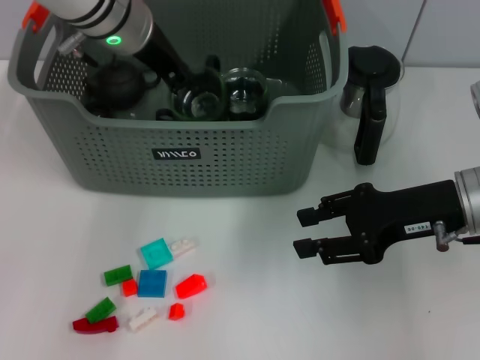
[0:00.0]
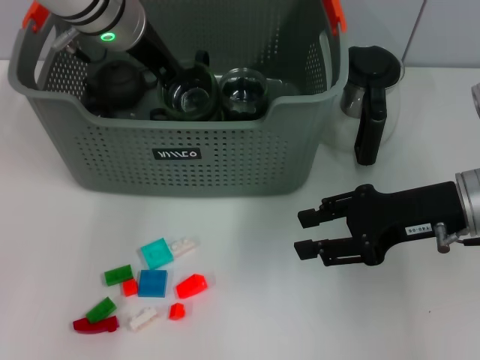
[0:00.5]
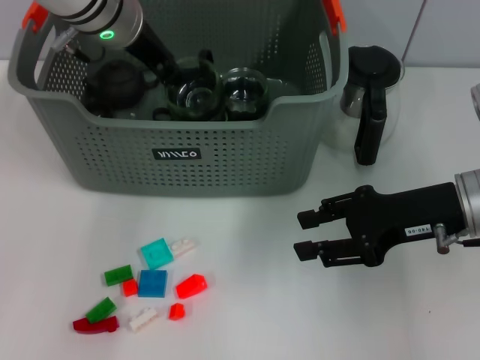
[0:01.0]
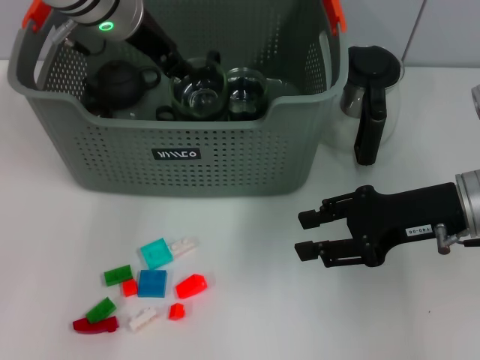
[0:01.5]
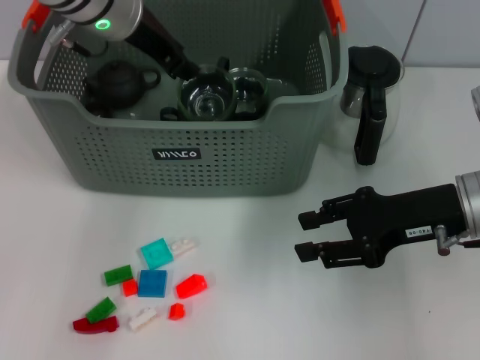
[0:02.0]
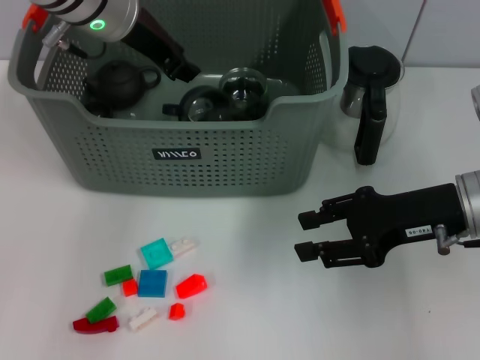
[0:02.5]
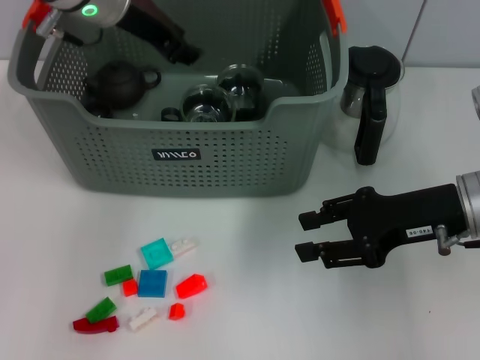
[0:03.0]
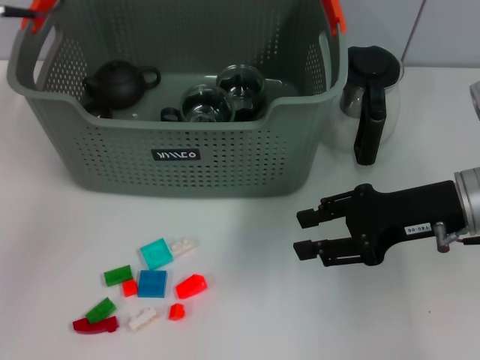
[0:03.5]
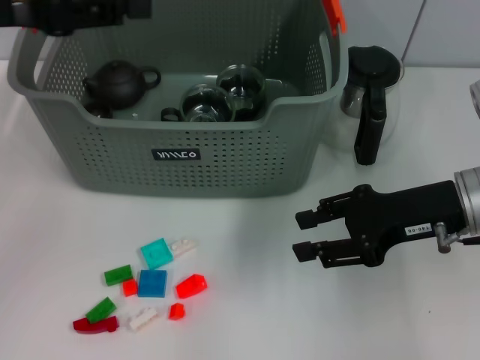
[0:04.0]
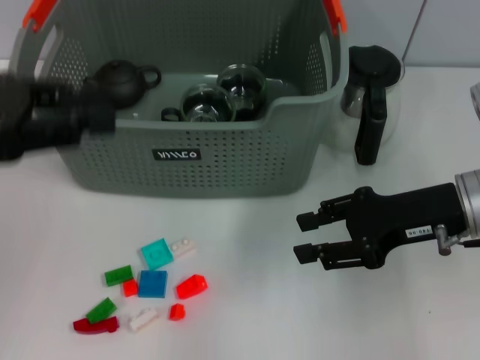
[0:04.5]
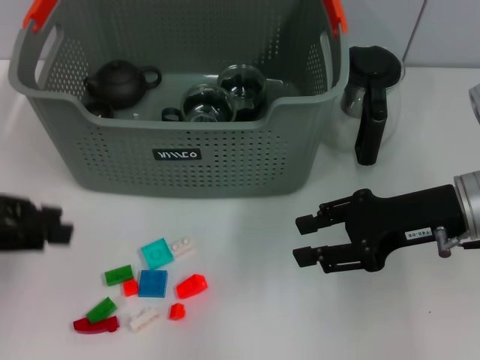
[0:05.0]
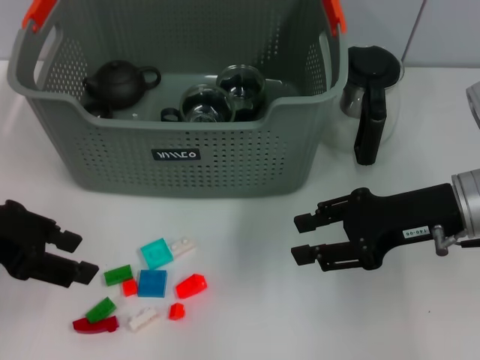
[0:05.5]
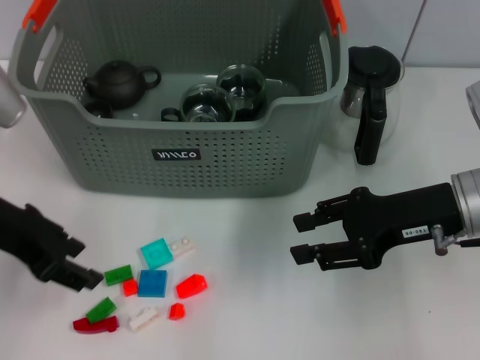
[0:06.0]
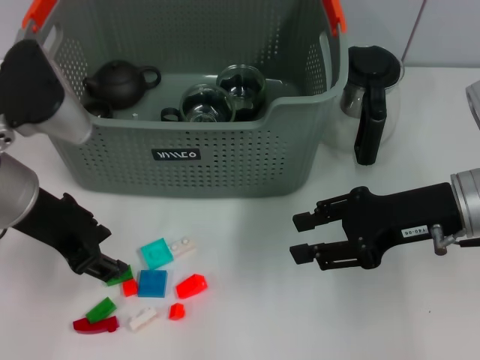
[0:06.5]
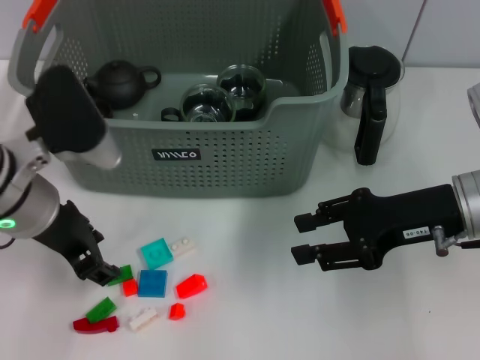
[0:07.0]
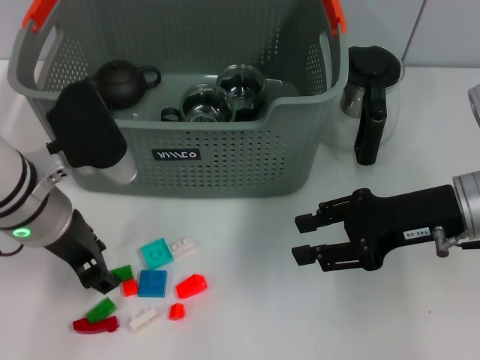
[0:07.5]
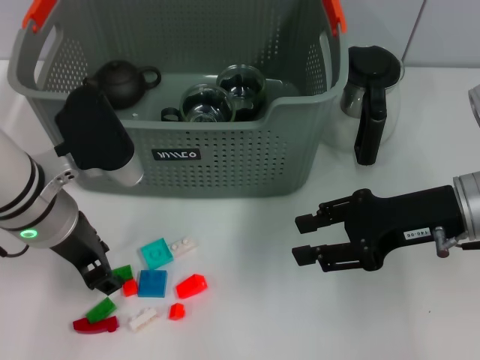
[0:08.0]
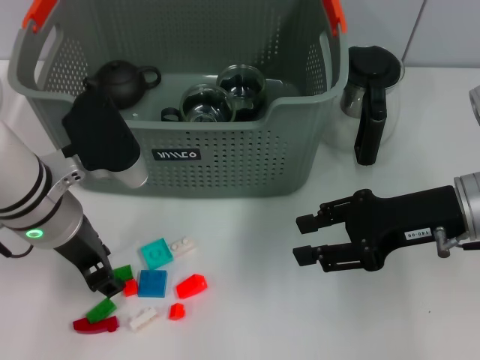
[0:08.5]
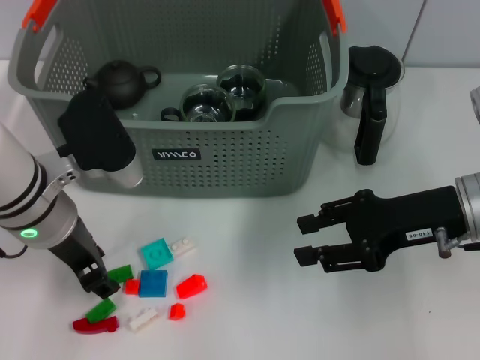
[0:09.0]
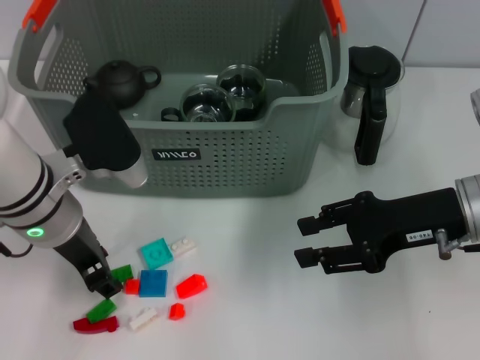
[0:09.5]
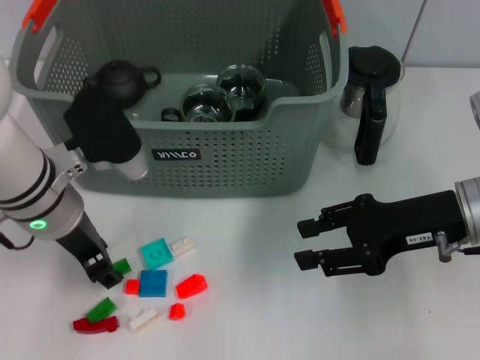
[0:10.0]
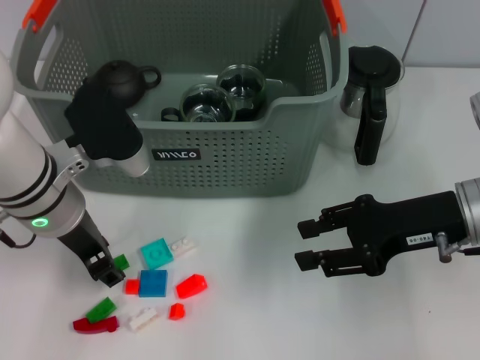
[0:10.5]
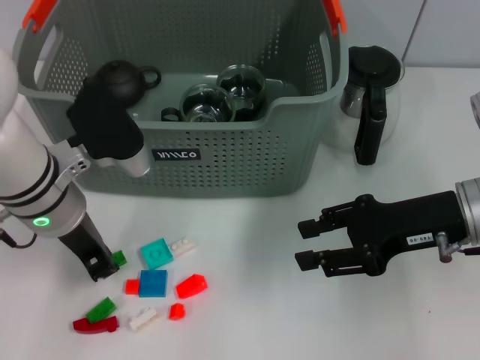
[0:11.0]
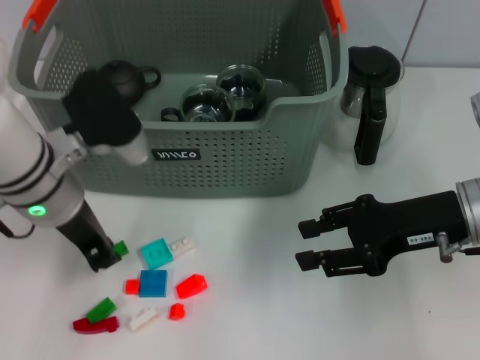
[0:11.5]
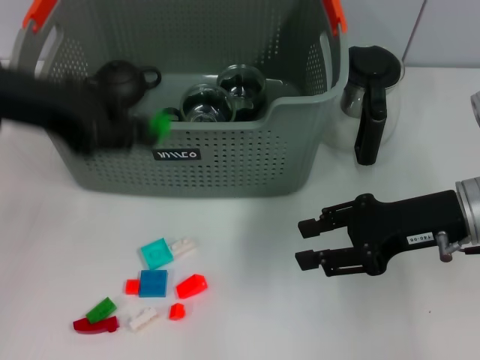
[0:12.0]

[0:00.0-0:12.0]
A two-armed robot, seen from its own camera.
Task of the whole recording: pick up the teacup on the table and place it into the storage bin, pick up the block on the table and place it into the storage bin.
Step, 0:00.0 to 0:03.0: Place the cup in the storage box with left gripper.
Step, 0:03.5 to 0:11.5: Grasp the green block with left gripper.
0:00.0 to 0:02.0: The grippers move only a little.
0:02.0 to 0:04.0: The left gripper is displaced to the left, backward and upward by about 20 cm.
0:04.0 to 0:06.0: The left gripper moves downward, roughly 10 cm.
0:06.0 to 0:08.0: The left gripper shifts approximately 10 cm to the right and downward.
0:08.0 to 0:10.0: The grippers stay close to where they were, moving slightly.
0:10.0 to 0:12.0: The left gripper travels upward and to the left by roughly 15 cm, and closes up.

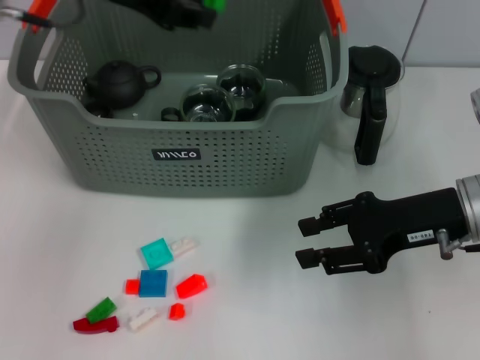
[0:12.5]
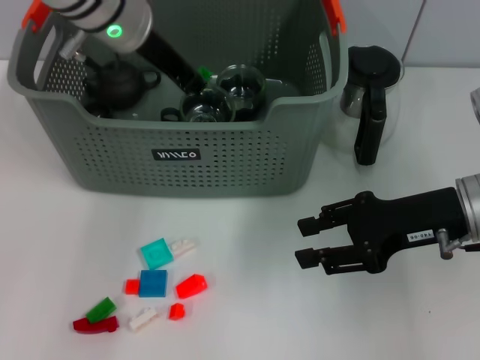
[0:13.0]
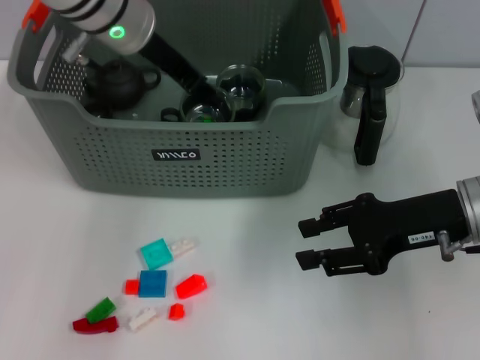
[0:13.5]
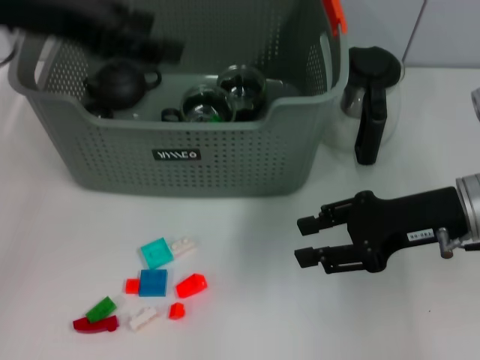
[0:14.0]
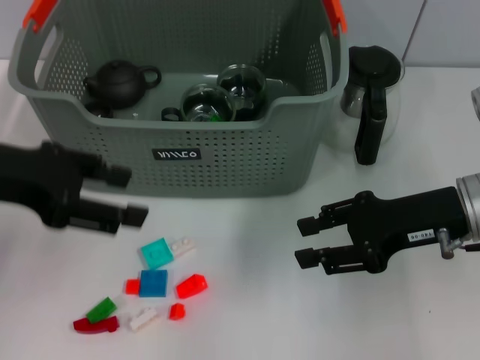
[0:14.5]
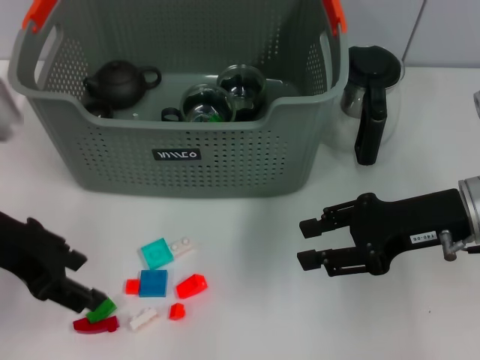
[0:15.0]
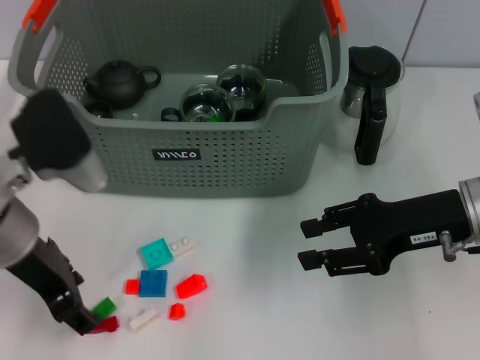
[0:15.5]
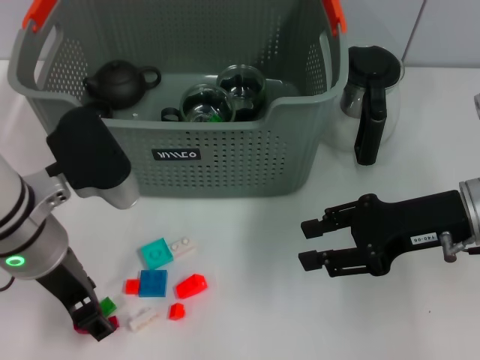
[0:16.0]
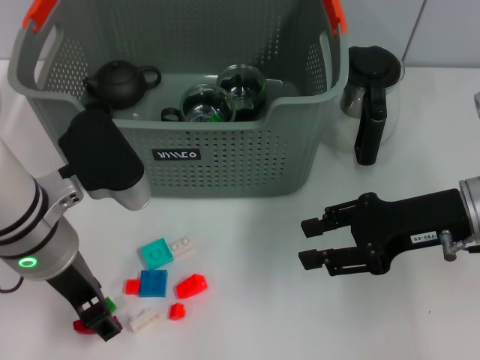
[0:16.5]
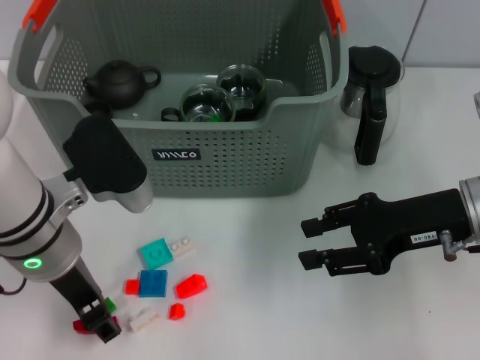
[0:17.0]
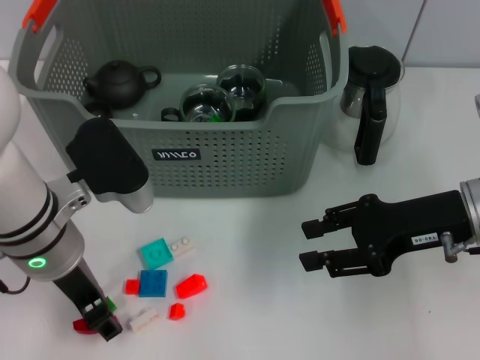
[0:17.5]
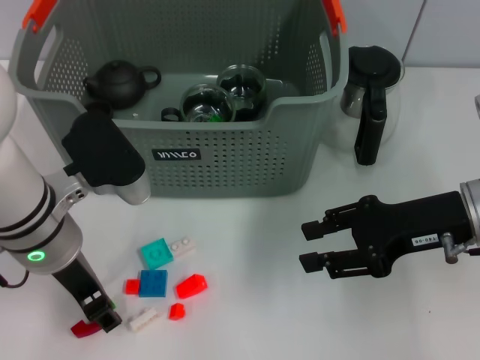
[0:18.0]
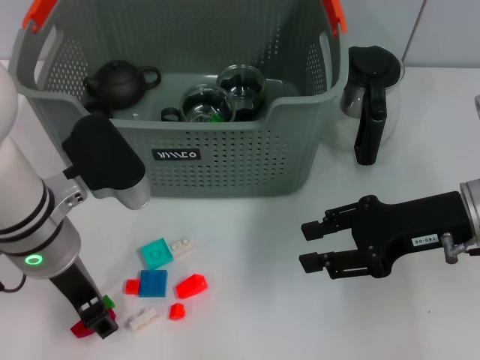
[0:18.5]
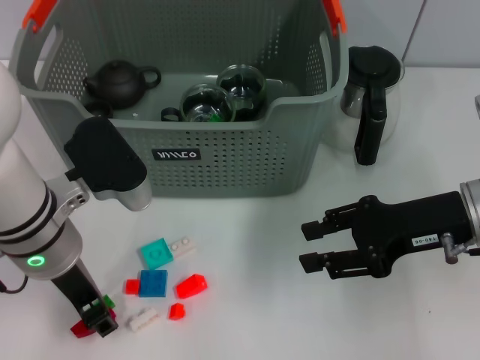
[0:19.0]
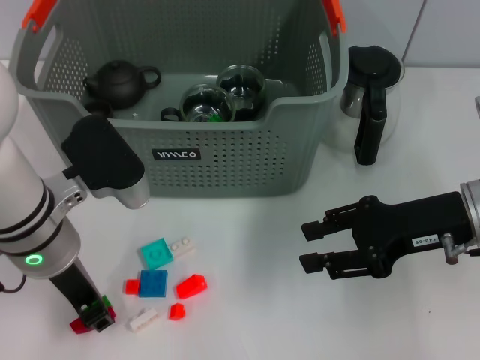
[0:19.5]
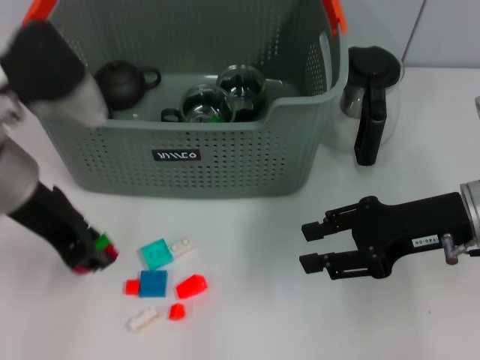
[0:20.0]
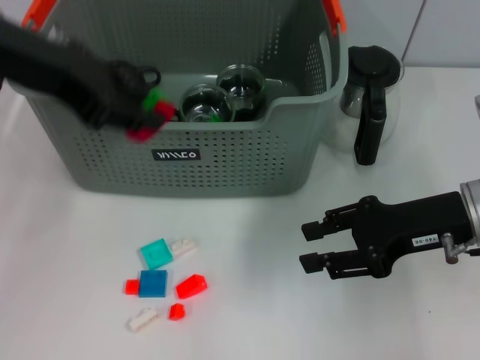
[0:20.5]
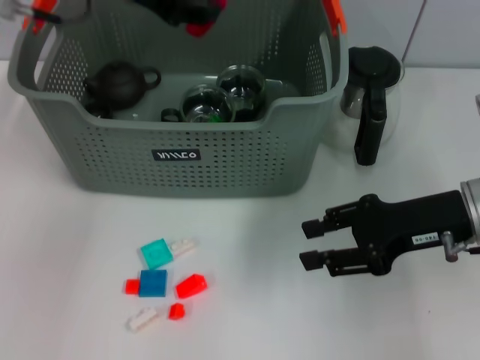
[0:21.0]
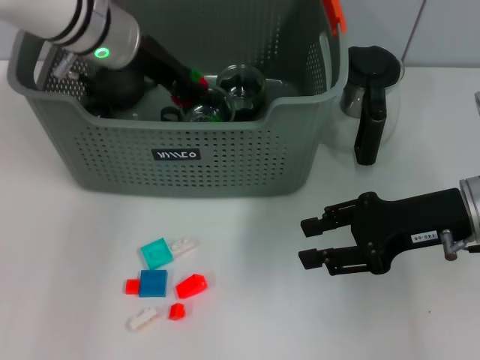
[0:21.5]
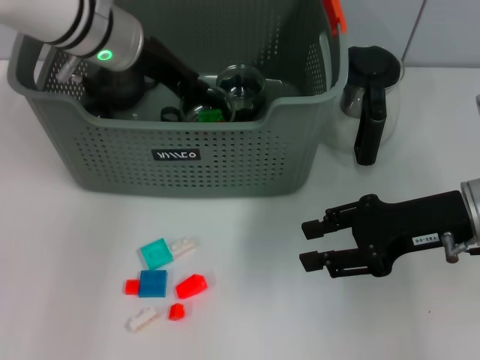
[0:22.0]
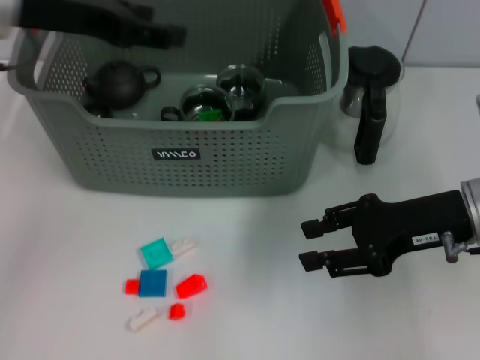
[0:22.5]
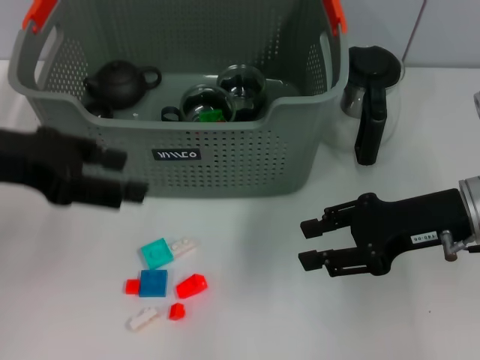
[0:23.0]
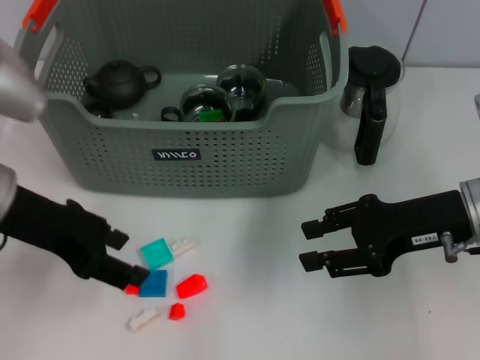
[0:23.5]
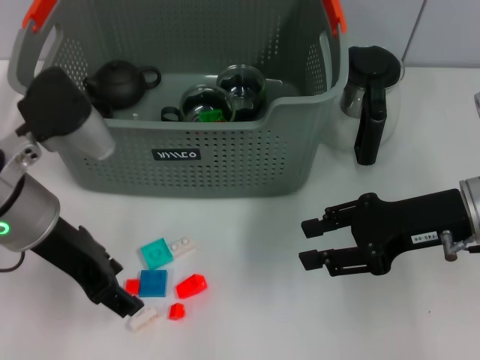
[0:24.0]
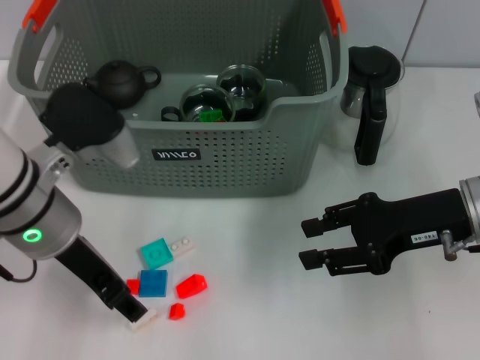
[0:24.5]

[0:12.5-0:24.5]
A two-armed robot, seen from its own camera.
Task of the whole recording: pick up the teacup on the table and place it into the storage bin, pick up the block on the table and place it into the storage bin.
Step, 0:12.5 to 0:13.5: Place the green block in the storage box with left gripper.
Step, 0:14.0 to 0:19.5: Grasp the green block and red block with left gripper.
Step, 0:20.0 to 0:22.0: Place the green block and red block in the storage box with left gripper.
0:12.5 to 0:14.5: The left gripper is displaced backward, to the left and downward by some 15 cm, and opens its fingers.
0:14.5 to 0:16.5: The left gripper heads to the right and downward, covering roughly 10 cm.
0:16.5 to 0:18.5: The grippers move only a little.
0:18.5 to 0:20.5: The left gripper travels upward by approximately 15 cm.
0:22.5 to 0:24.5: The left gripper travels downward and backward by some 15 cm.

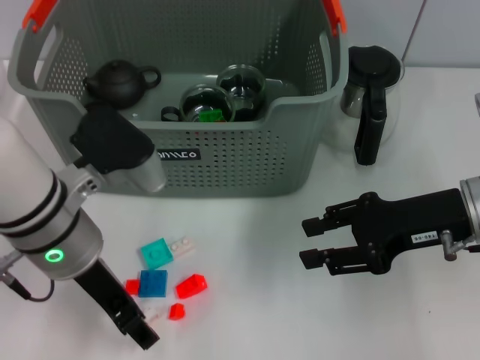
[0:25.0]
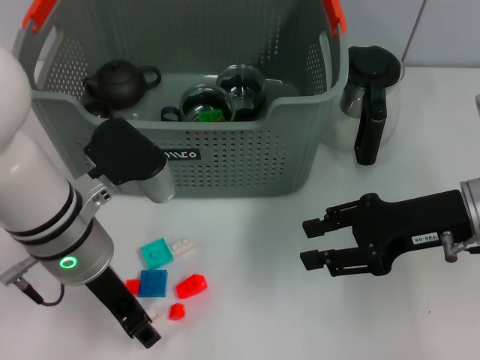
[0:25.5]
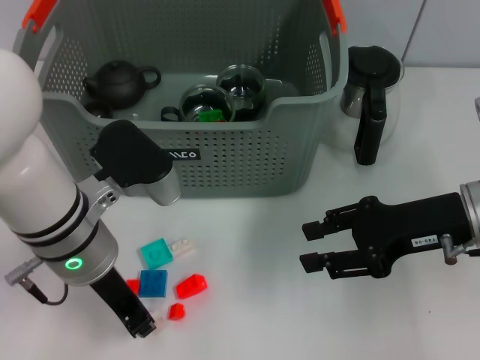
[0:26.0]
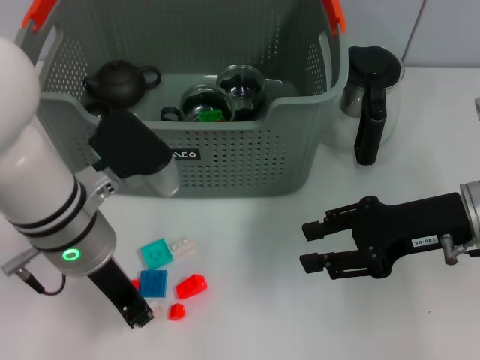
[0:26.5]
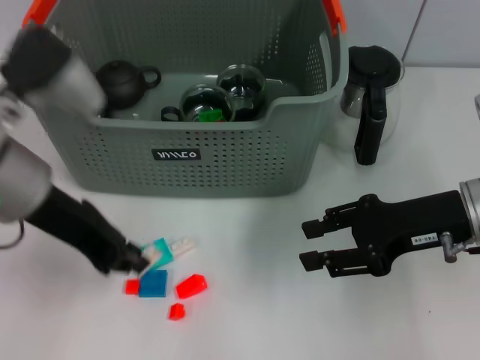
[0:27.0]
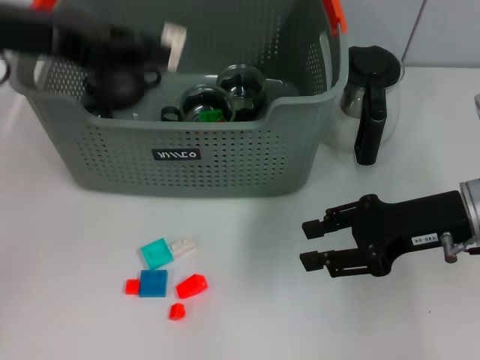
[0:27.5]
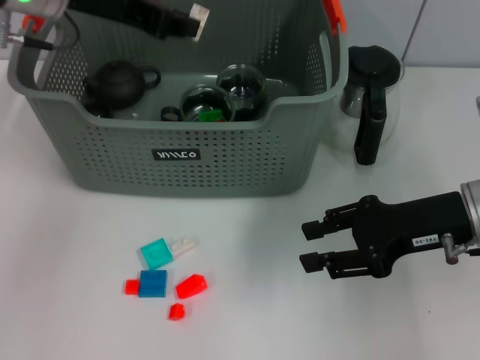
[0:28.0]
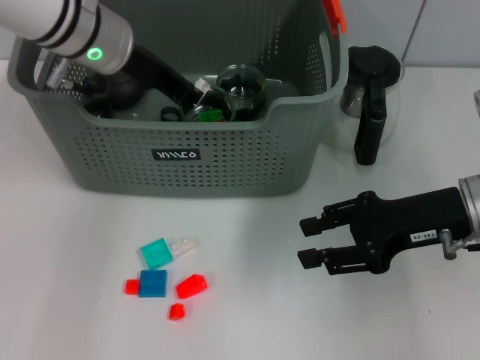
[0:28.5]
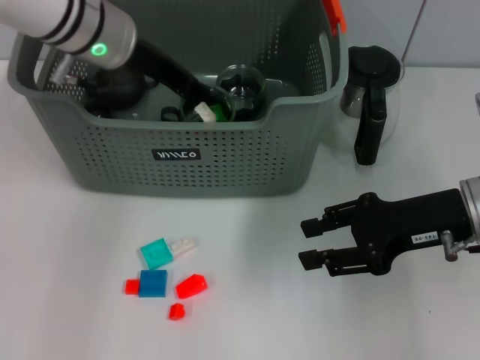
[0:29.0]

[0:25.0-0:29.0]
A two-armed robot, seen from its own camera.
Task of the whole recording: pick up the teacup on the table and place it into the storage bin, pick up the block on the table and place it into the storage bin.
0:25.0 to 0:27.0: The left gripper travels upward by approximately 5 cm, and closes its fingers.
0:27.0 to 0:29.0: The left gripper travels forward by about 15 cm.
